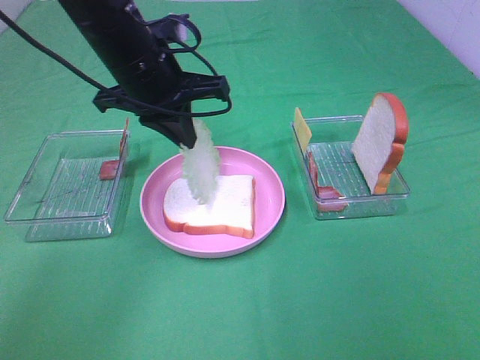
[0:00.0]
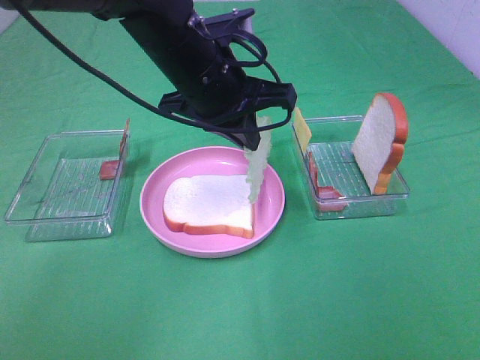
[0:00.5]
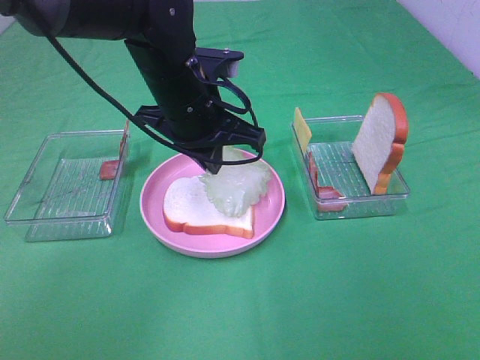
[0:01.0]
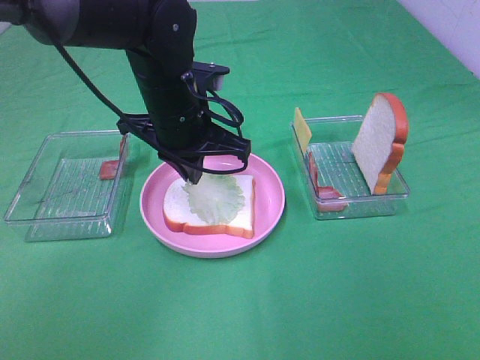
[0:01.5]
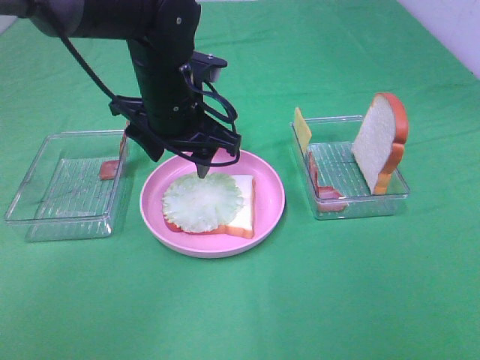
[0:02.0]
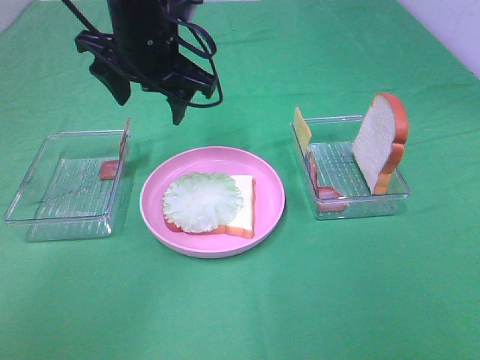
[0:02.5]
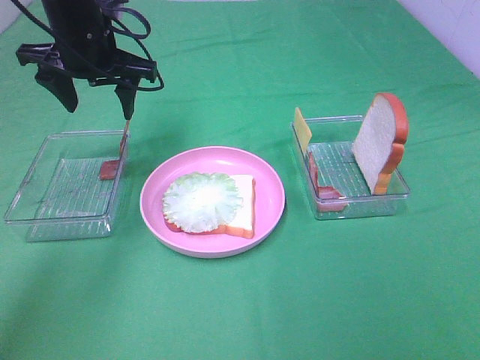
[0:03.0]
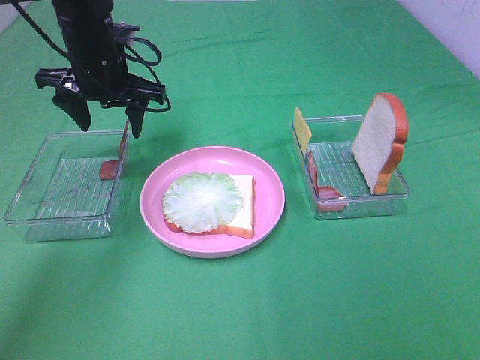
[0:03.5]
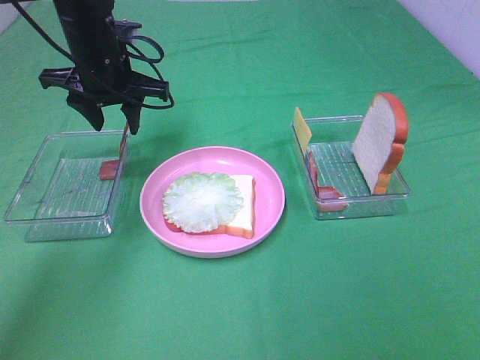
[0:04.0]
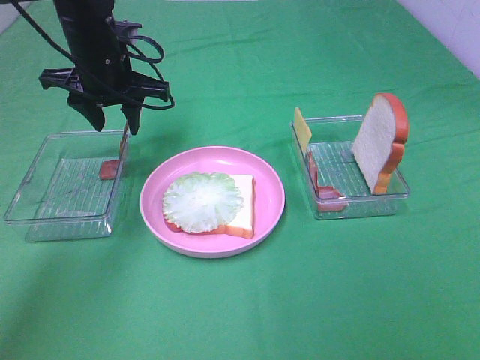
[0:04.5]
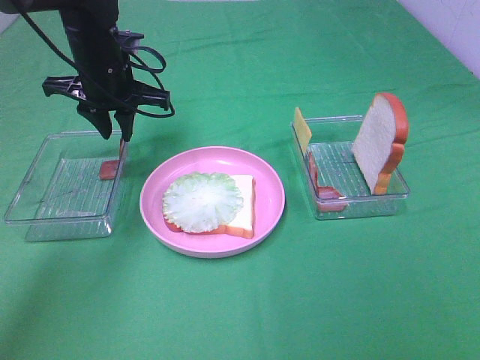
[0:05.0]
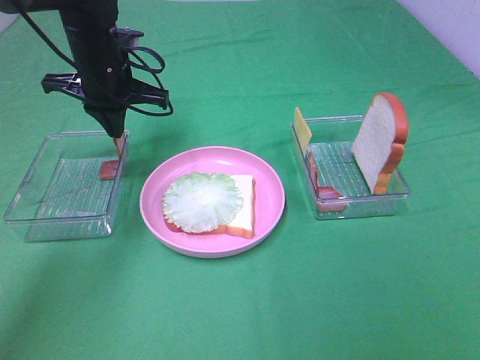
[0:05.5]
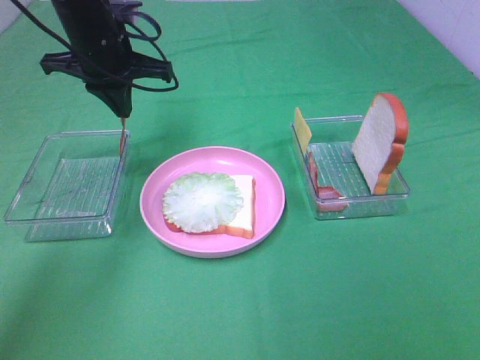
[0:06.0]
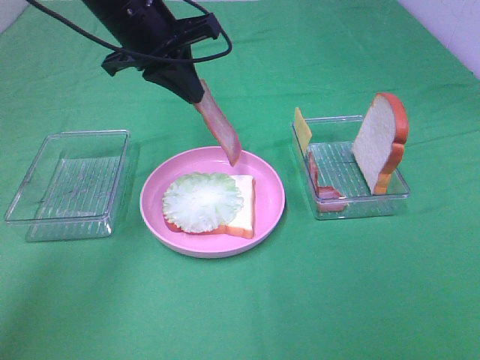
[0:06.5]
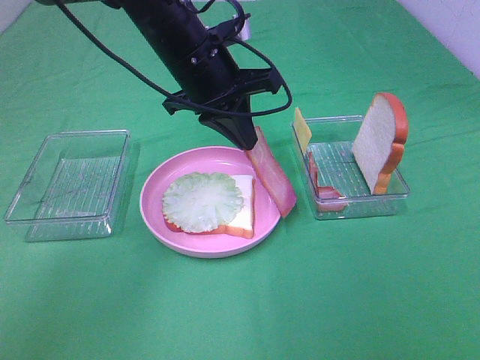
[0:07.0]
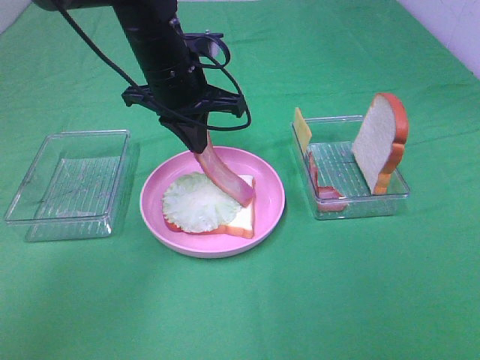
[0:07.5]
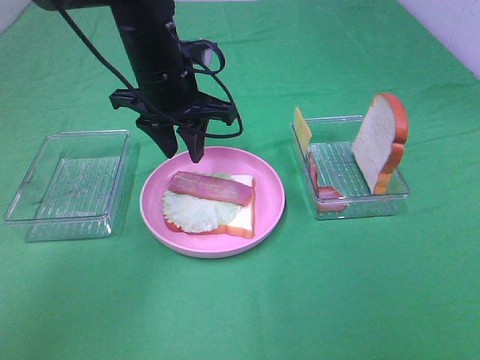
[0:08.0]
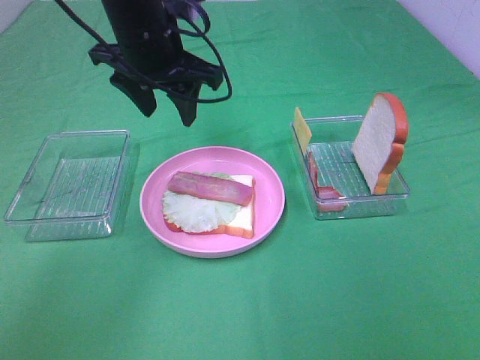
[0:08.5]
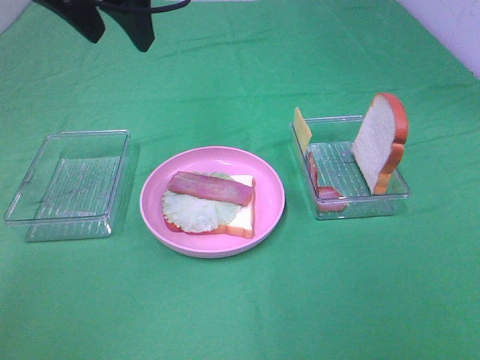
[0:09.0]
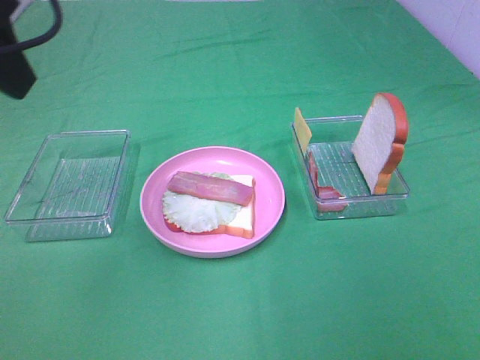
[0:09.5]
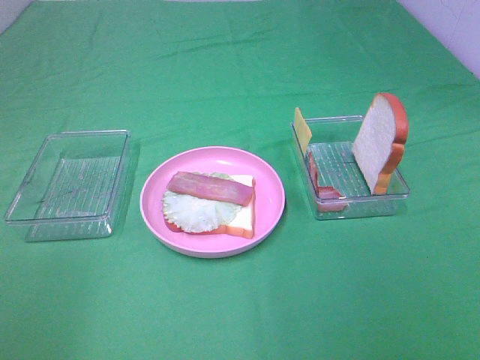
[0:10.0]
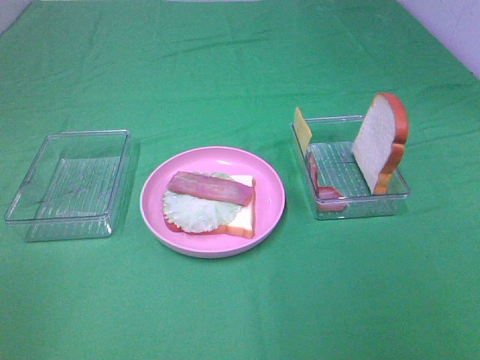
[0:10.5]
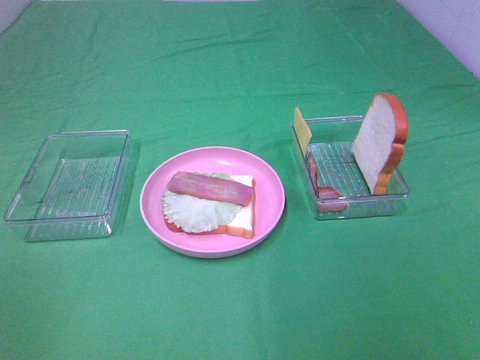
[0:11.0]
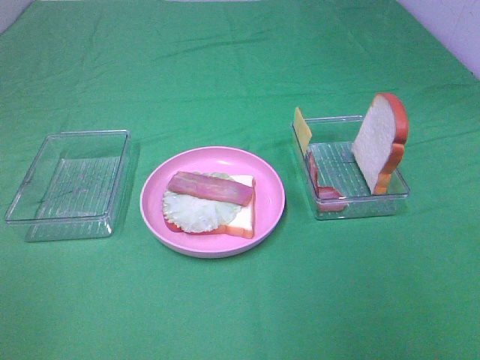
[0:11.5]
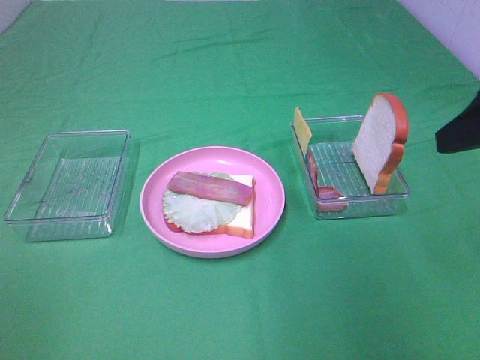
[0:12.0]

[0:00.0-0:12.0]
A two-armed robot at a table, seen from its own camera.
Task of the whole recording: Make sandwiches.
Step, 0.0 to 1.5 s: Left hand:place the lettuce slice on the bread slice.
Step, 2.0 to 5.5 s: Left hand:grab the bacon.
Step, 6.0 to 7.5 s: Left hand:place bacon on lettuce slice.
0.0 to 2.0 s: The left gripper opens.
2.0 to 4.0 s: The left gripper shifts some 10 cm to the left and forward.
4.0 to 6.0 s: The left gripper closes its fingers.
6.0 to 8.0 s: The left gripper goes about 10 cm to the right, and opens its fingers.
8.0 to 10.0 s: The left gripper moves backward, to the left and upward, about 40 cm.
10.0 to 12.0 s: The right gripper is displaced forward by approximately 20 cm.

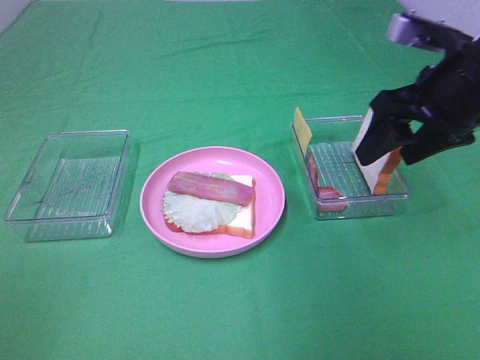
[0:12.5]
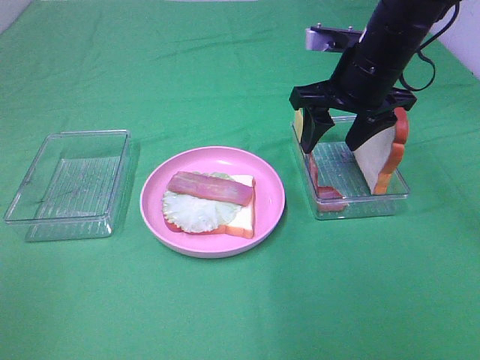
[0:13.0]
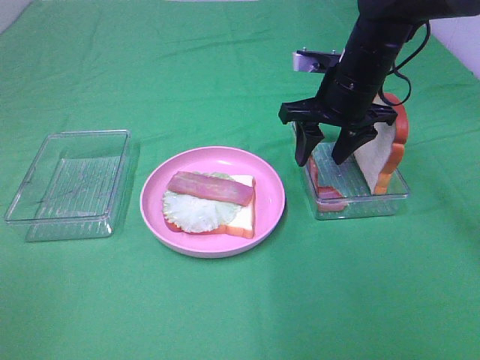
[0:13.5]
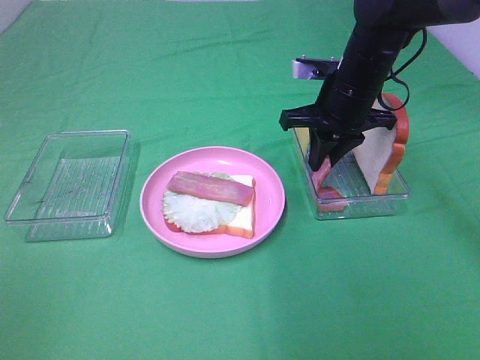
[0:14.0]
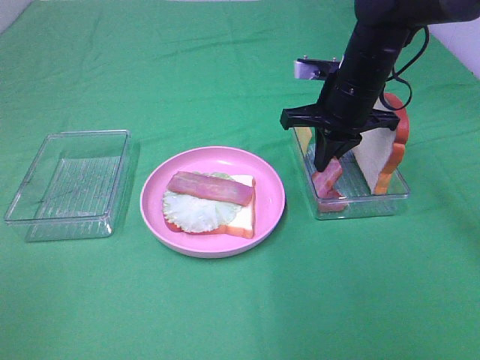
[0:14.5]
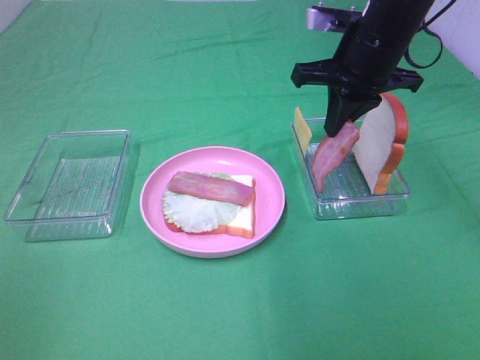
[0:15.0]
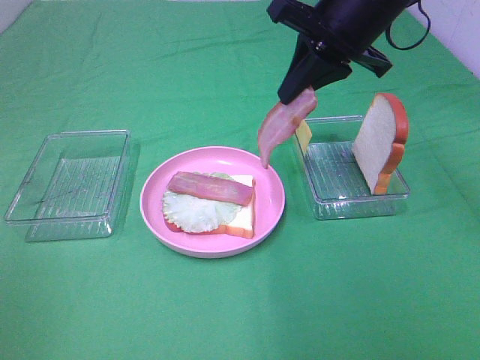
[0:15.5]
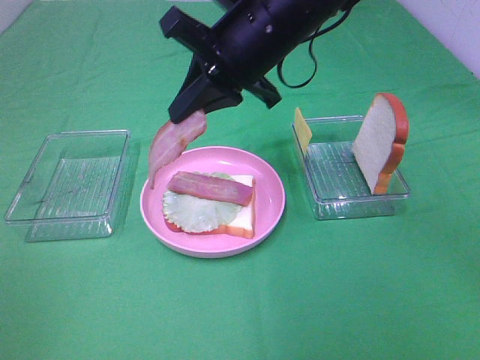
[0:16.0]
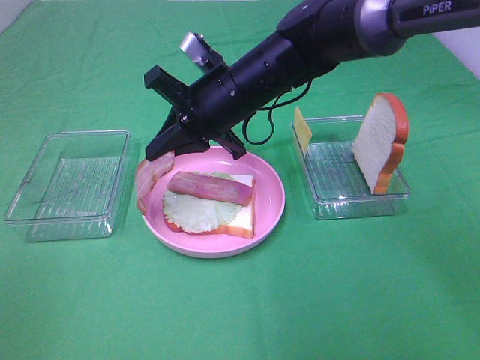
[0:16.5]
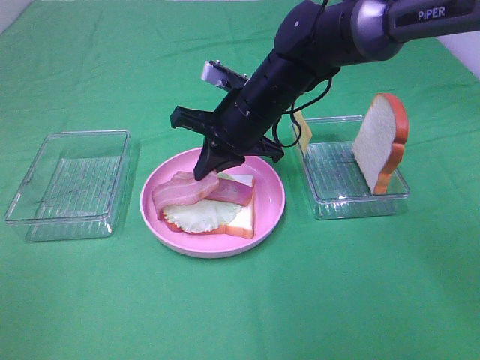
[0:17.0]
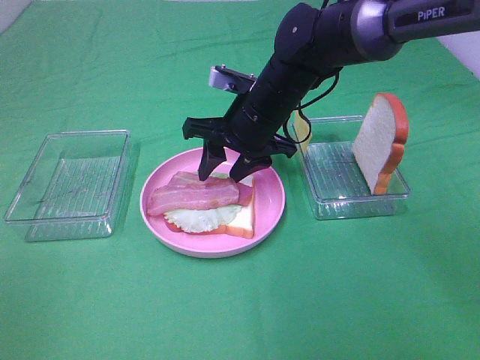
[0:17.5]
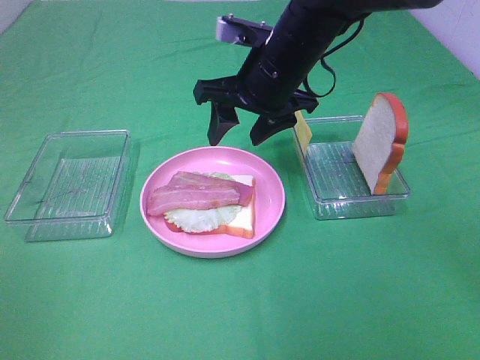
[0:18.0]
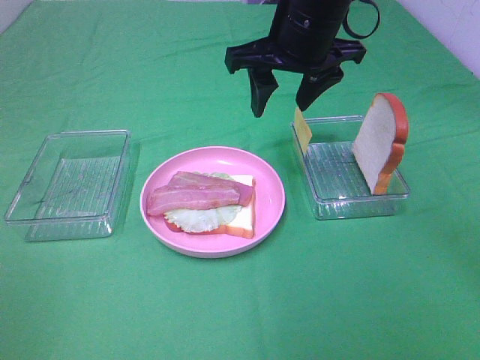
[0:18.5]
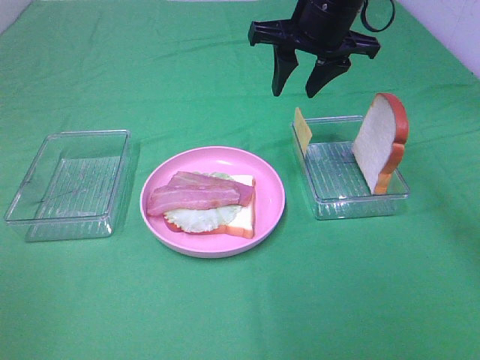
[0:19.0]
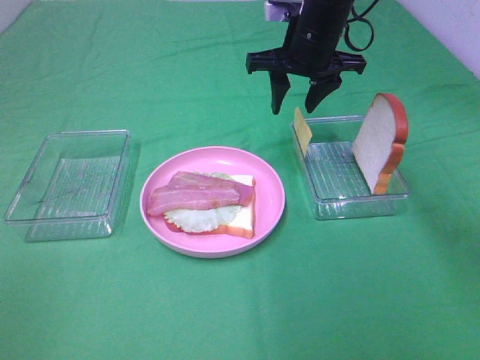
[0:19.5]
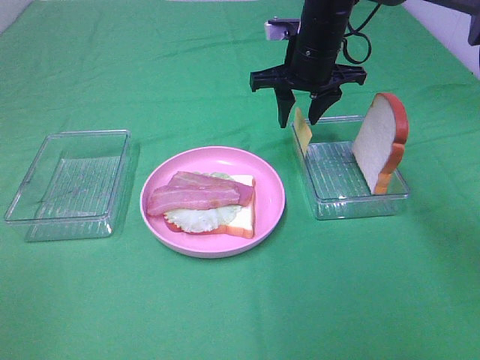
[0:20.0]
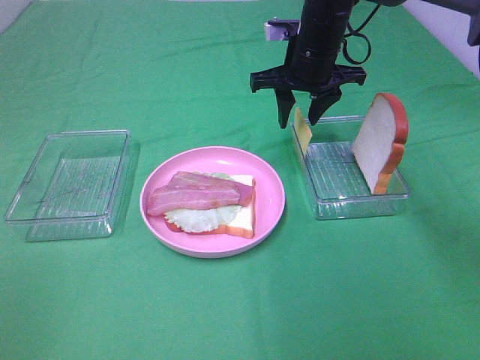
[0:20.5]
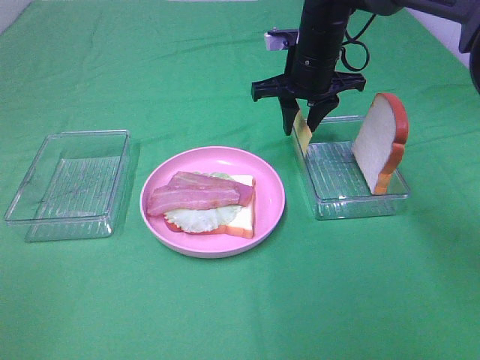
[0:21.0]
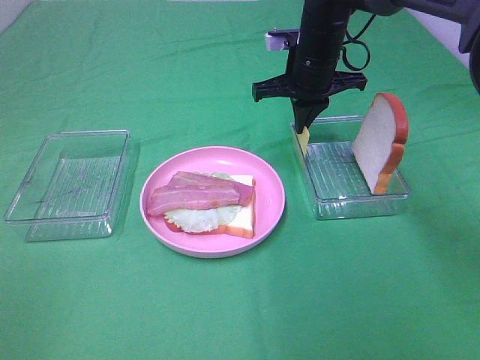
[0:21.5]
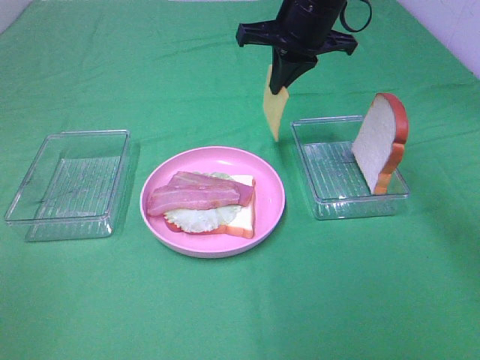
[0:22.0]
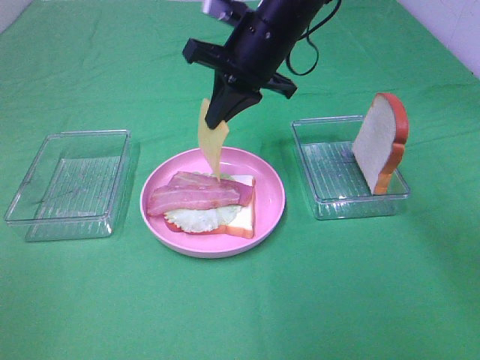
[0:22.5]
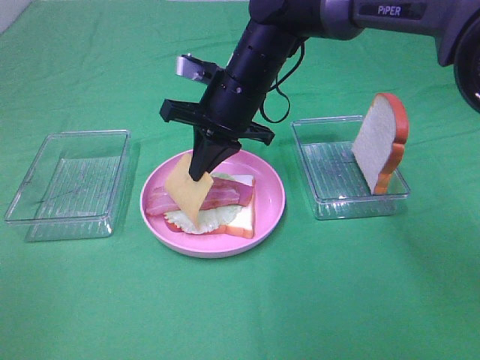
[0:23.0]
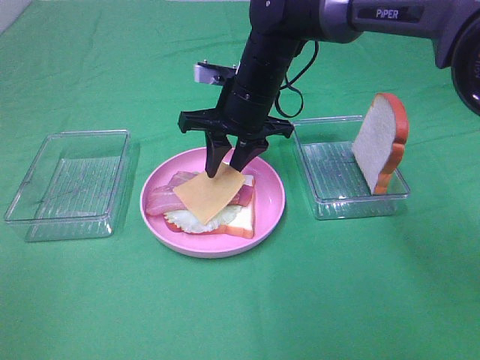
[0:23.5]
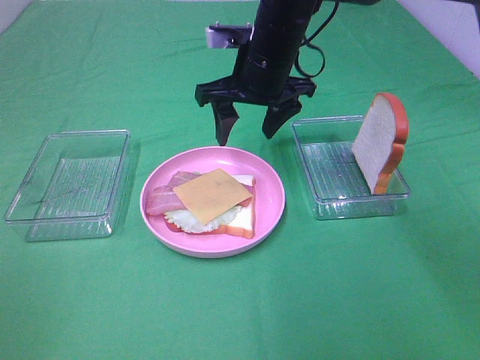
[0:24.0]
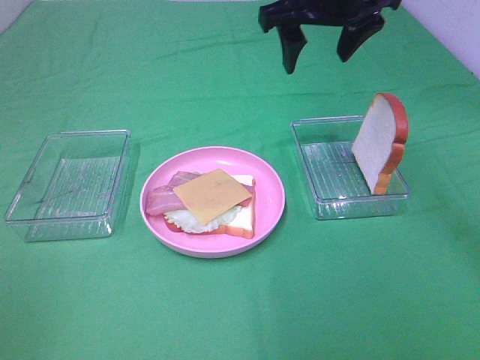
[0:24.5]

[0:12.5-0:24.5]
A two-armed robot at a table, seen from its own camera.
Task of the whole recording: Make sandwiches.
Step, 12.5 to 14.5 s: Right hand:grab the bacon.
Step, 15.0 to 17.5 s: Right hand:place bacon on bacon.
Step, 18.0 to 21.5 s: Right hand:grab the cheese slice.
Step, 22.0 to 23.5 s: Right hand:place the cheese slice on top of the bacon.
12.5 to 14.5 s: The right gripper travels forward, to the left and downward by roughly 15 cm, and closes.
14.5 to 16.5 s: The right gripper goes roughly 15 cm to the left.
16.5 to 18.5 s: The right gripper moves upward and to the right, some 10 cm, and opens its fingers.
18.5 to 20.5 s: The right gripper heads forward and downward, covering approximately 10 cm.
20.5 to 22.5 s: The right gripper heads to the left and backward, covering roughly 10 cm, and closes.
22.5 to 24.5 s: The right gripper heads upward and to the right, covering about 10 cm, and opens.

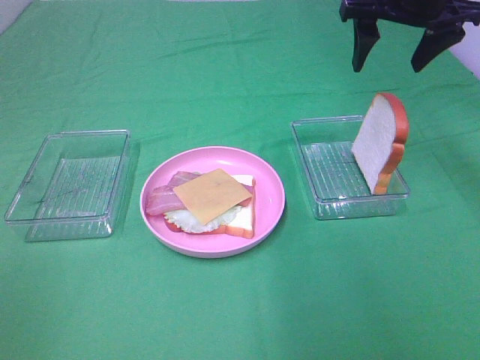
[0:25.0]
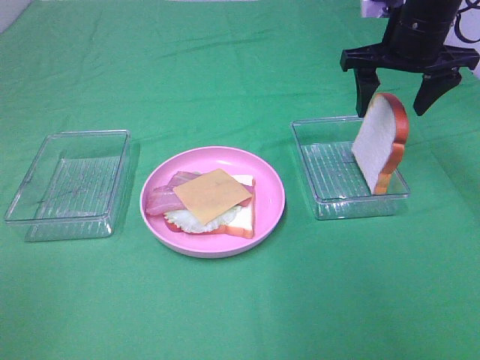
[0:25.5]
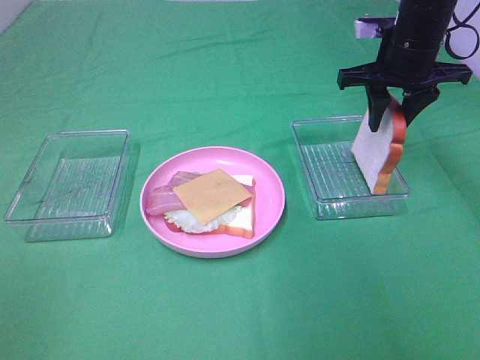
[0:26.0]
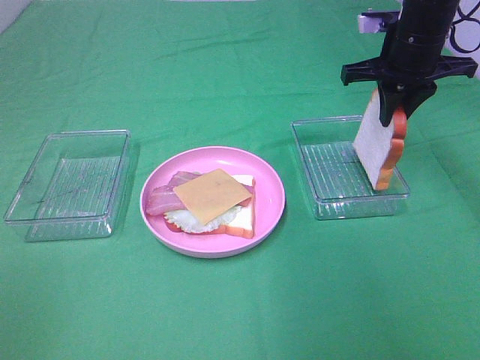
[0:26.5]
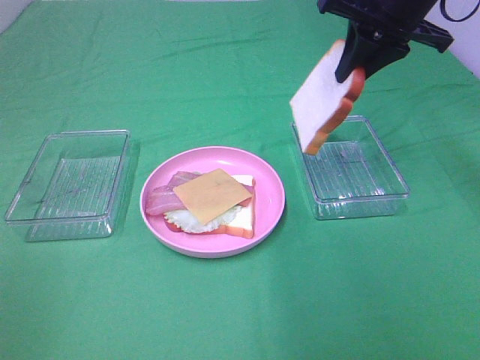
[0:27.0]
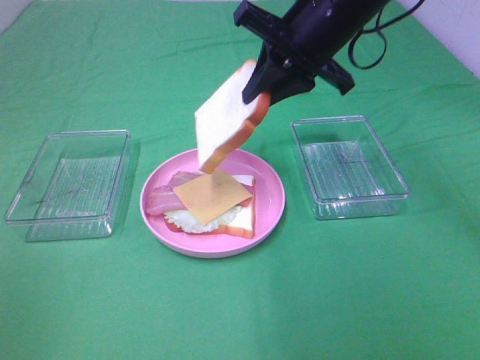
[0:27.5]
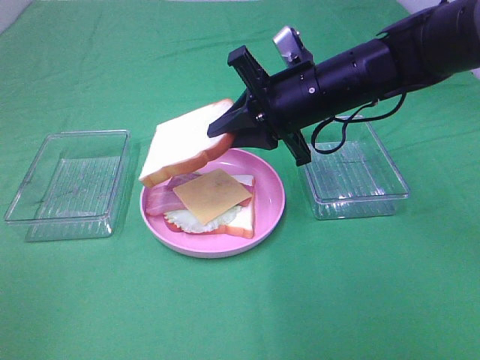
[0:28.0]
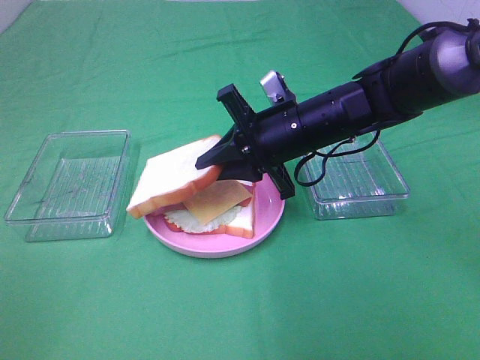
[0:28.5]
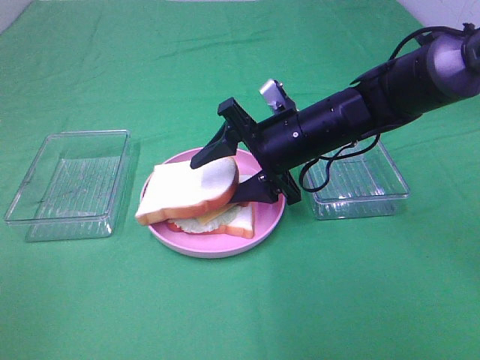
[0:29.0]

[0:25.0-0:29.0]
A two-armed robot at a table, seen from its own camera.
Task of the whole recording: Make sandwiches.
25.0 to 27.0 s: The right gripper reaches approximately 10 cm downward, then returns, and closes up.
27.0 to 29.0 s: The right gripper travels downward and to the left by some 20 cm, and opens up.
